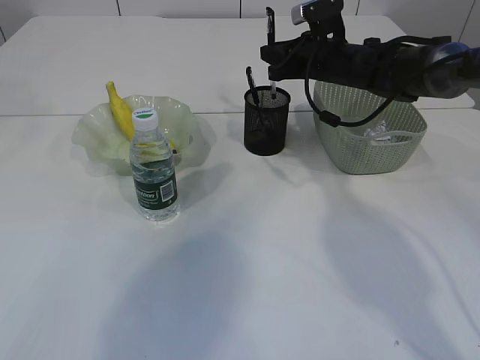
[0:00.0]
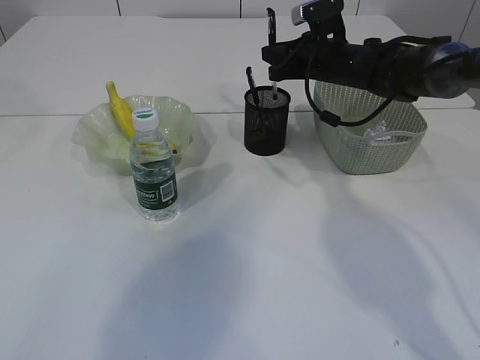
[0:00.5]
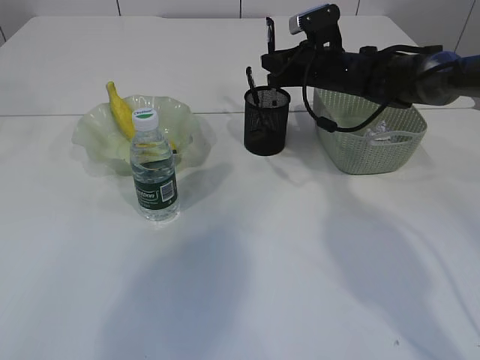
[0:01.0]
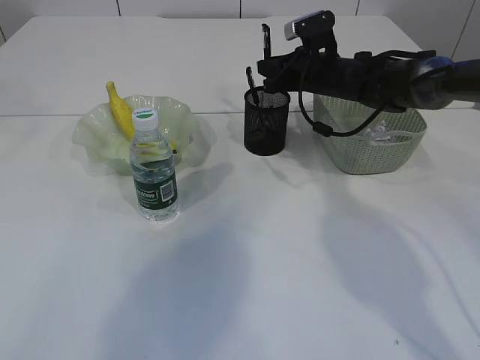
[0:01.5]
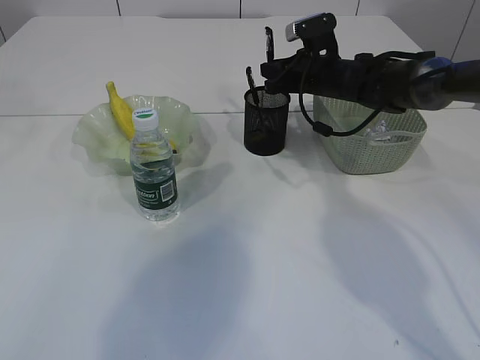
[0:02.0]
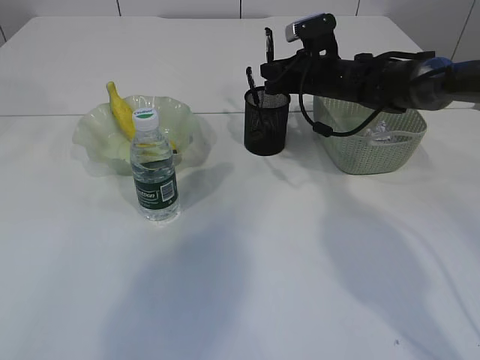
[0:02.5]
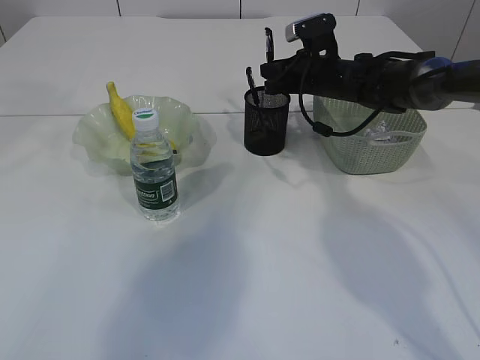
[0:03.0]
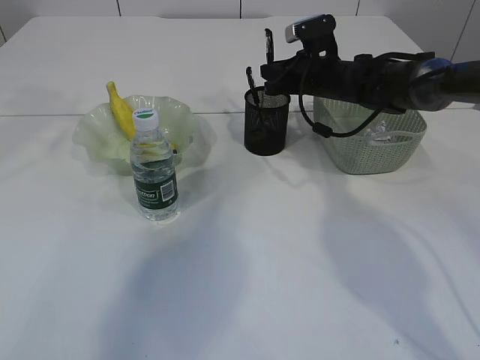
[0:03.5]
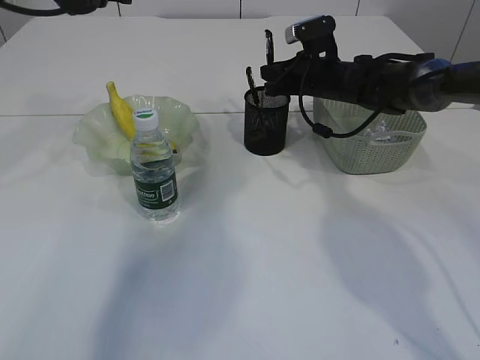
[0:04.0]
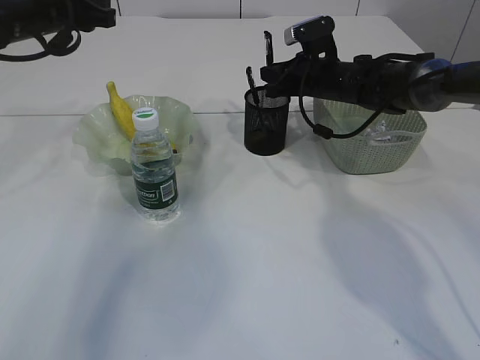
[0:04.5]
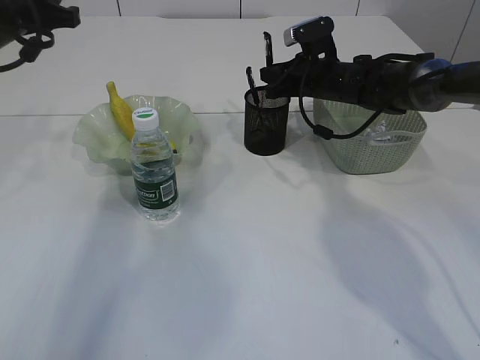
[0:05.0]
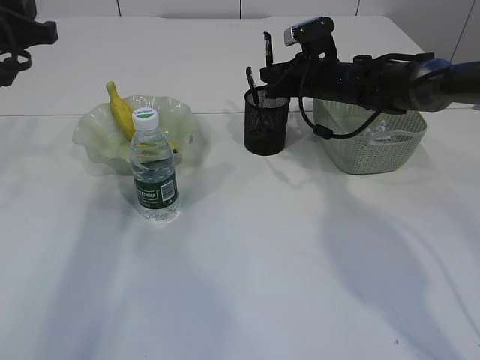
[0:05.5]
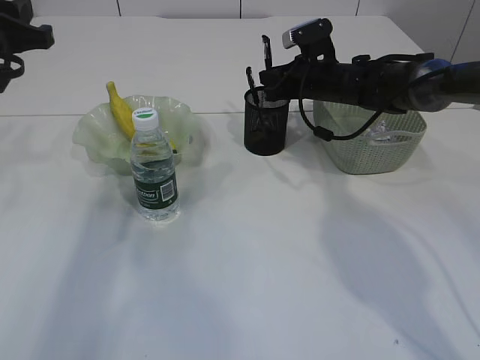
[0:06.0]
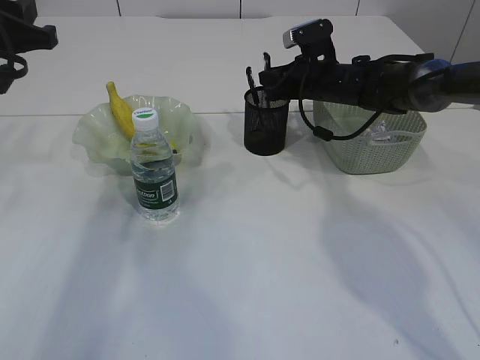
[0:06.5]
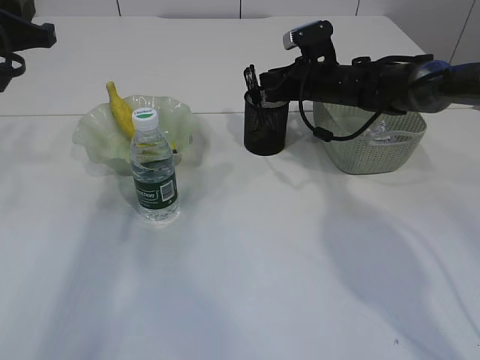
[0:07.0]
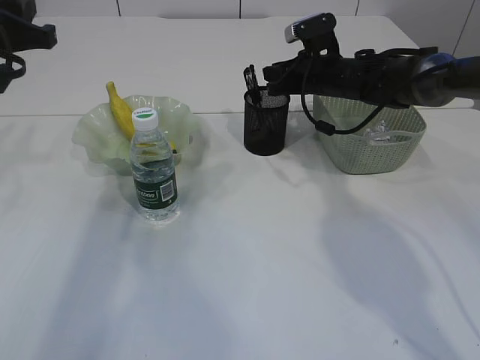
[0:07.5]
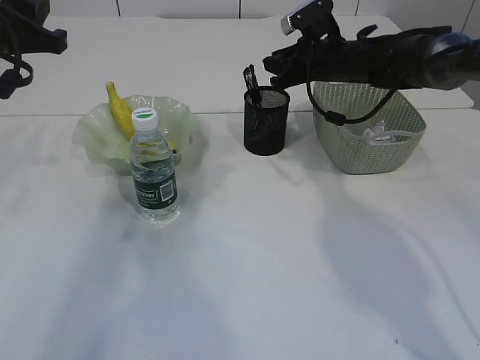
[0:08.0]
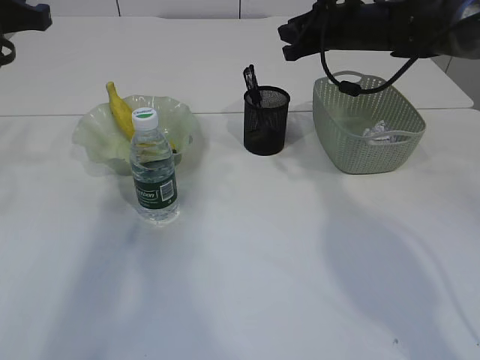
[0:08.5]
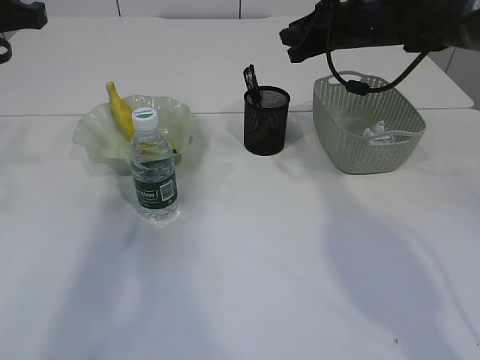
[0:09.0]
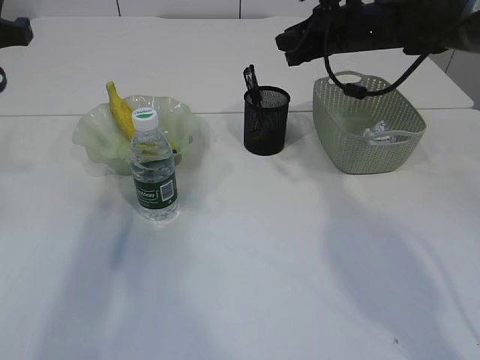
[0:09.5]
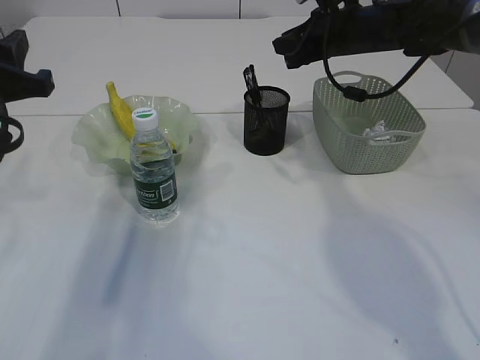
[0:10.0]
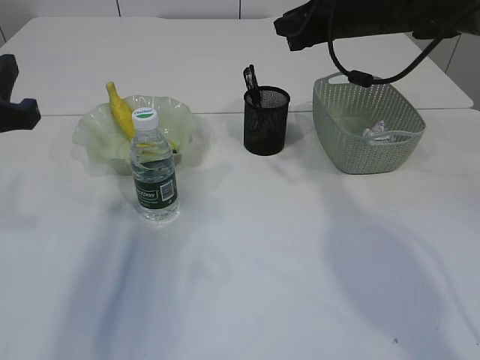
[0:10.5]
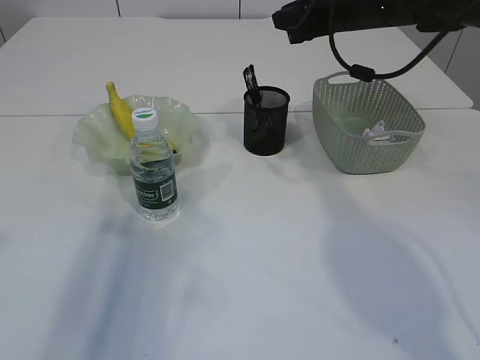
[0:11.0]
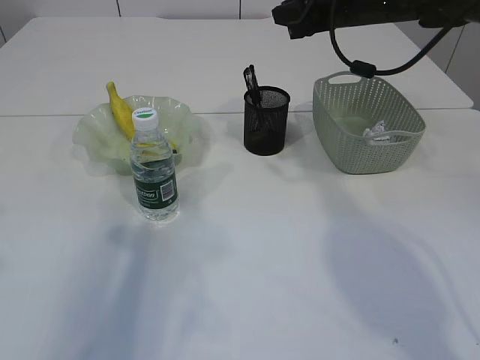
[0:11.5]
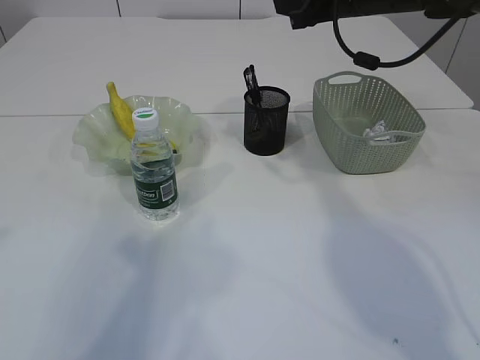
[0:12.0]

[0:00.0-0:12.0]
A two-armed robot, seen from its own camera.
Step, 0:00.0 to 0:08.0: Place the pen into the pen holder.
0:00.0 to 0:02.0: The grippers move only a little.
0:02.0 to 0:04.0: The left gripper goes approximately 15 cm downward.
0:04.0 to 0:06.0: The left gripper heads backward and to the left, covering about 10 cm.
0:06.0 to 0:08.0: The grippers move only a little.
0:08.0 to 0:10.0: The right gripper travels upward by roughly 5 cm. Meanwhile the left gripper moves backward, some 5 cm.
0:10.0 to 0:12.0: The left gripper moves backward, some 15 cm, while the right gripper shifts roughly 5 cm upward.

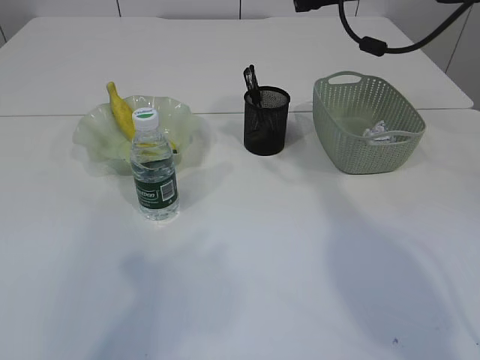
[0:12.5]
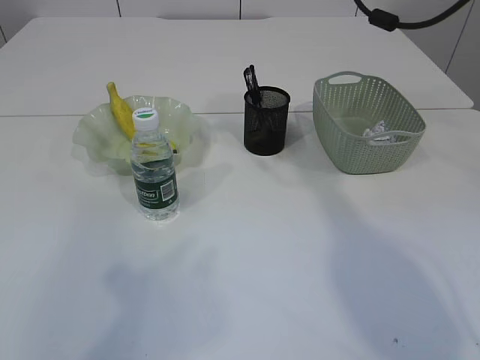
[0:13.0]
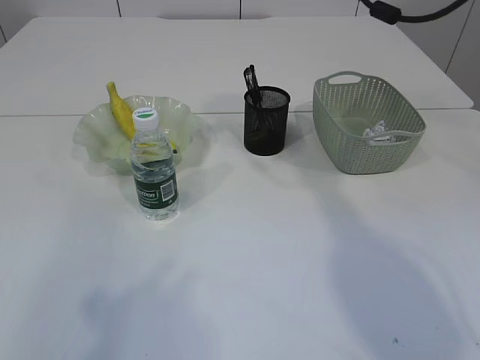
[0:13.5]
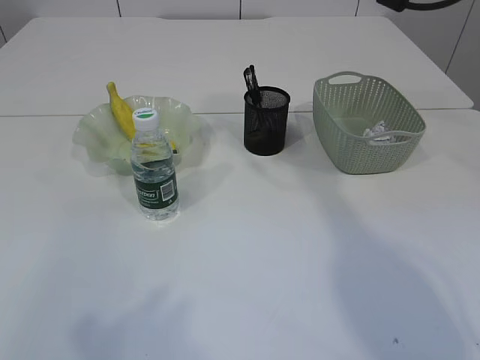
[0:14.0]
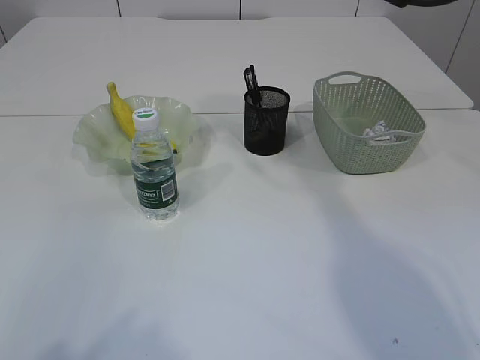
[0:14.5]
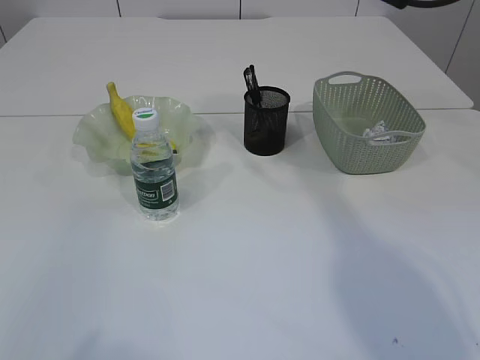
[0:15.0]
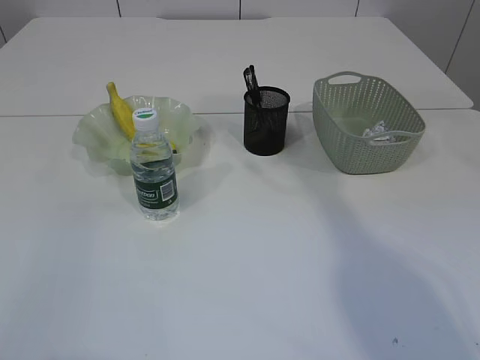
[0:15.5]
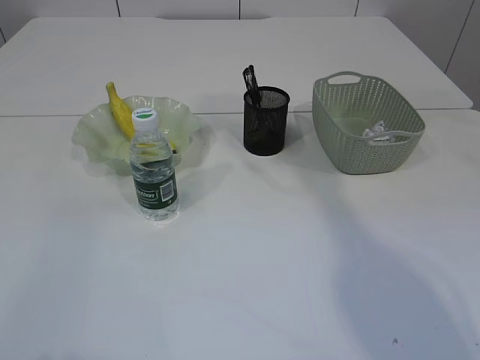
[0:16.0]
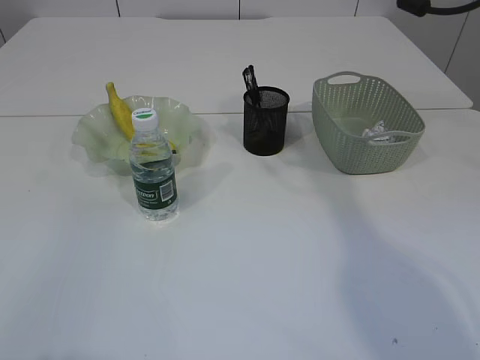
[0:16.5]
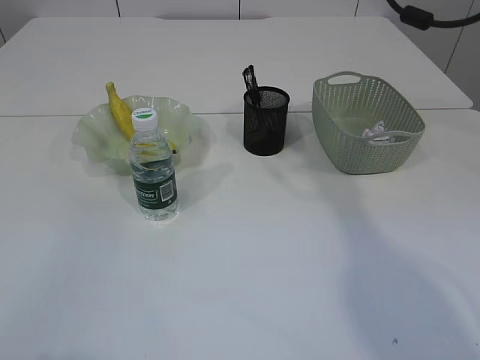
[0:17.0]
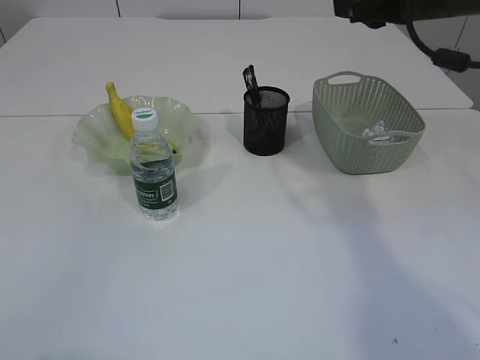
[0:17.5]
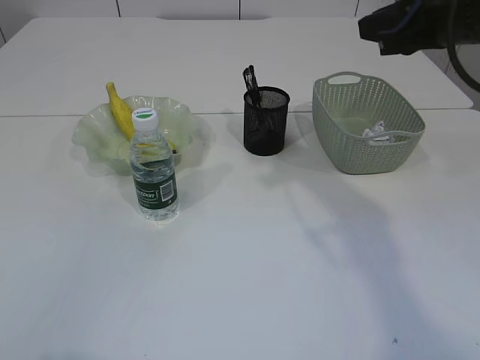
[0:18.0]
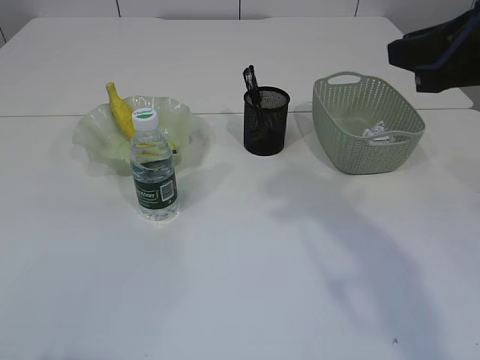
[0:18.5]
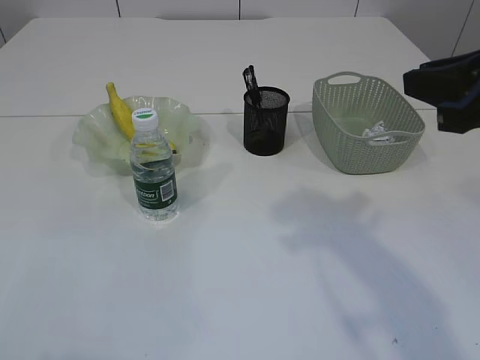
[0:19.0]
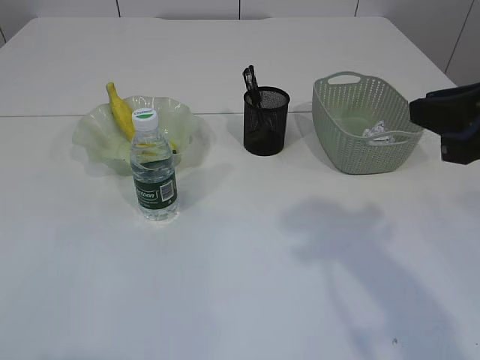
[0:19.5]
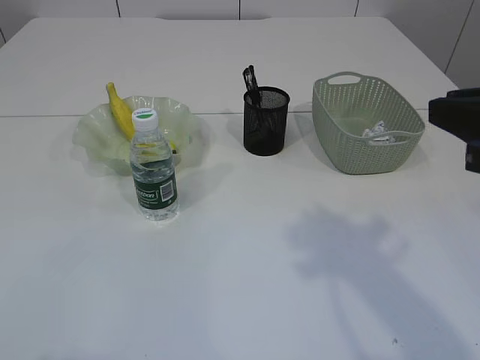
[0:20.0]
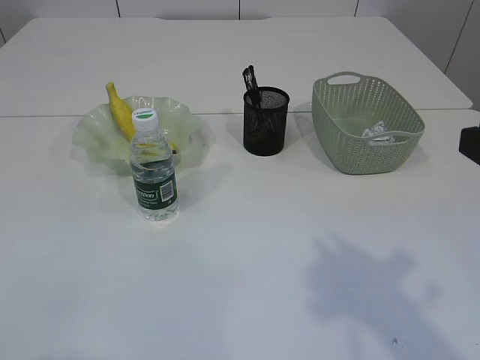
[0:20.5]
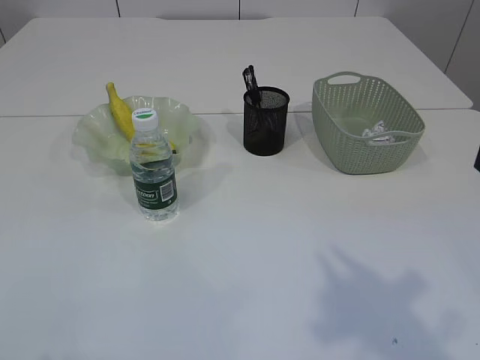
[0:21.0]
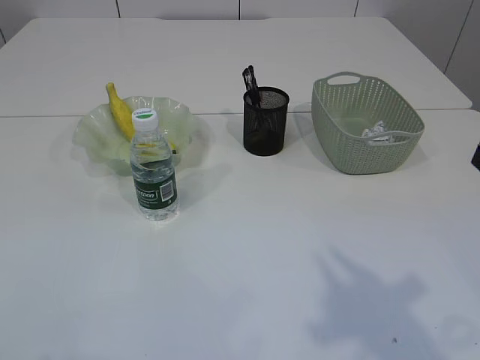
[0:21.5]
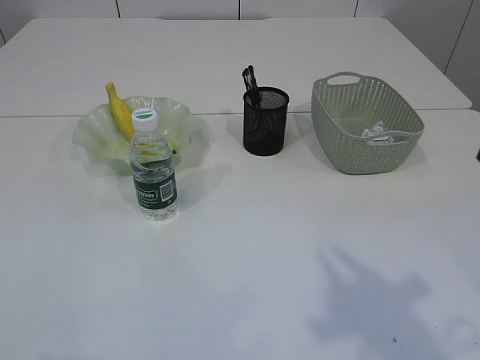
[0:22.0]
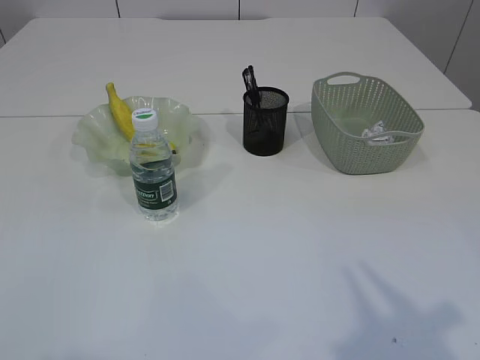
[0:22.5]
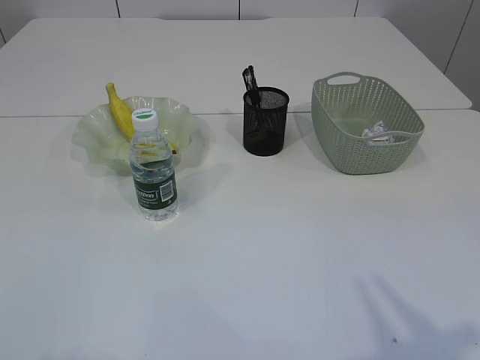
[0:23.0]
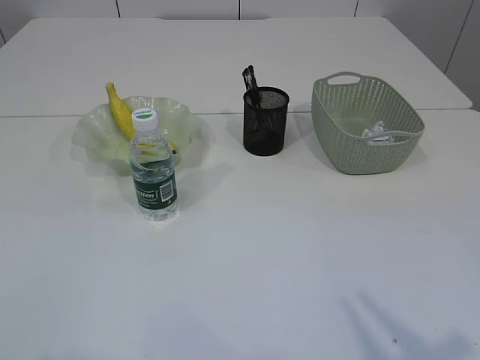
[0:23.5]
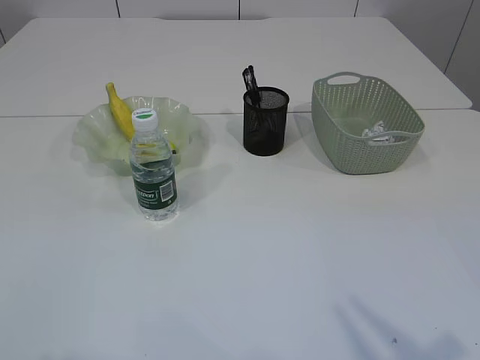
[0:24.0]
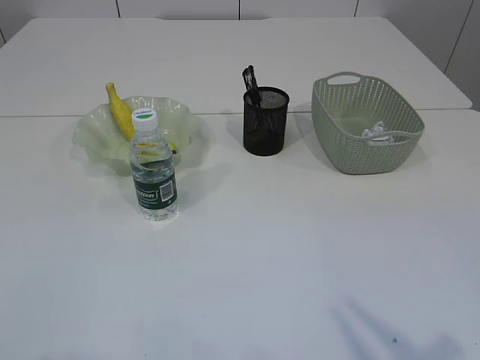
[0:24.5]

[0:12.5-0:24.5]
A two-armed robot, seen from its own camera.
0:12.5 to 0:14.5: The right gripper moves upward, about 5 cm. Meanwhile the left gripper travels backward by approximately 10 cm.
0:16.5 to 0:18.5: The right gripper heads backward, covering some 15 cm.
0:18.5 to 0:20.5: The right gripper is displaced backward by approximately 15 cm.
